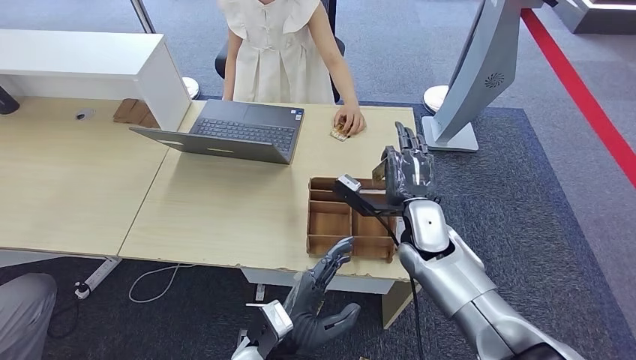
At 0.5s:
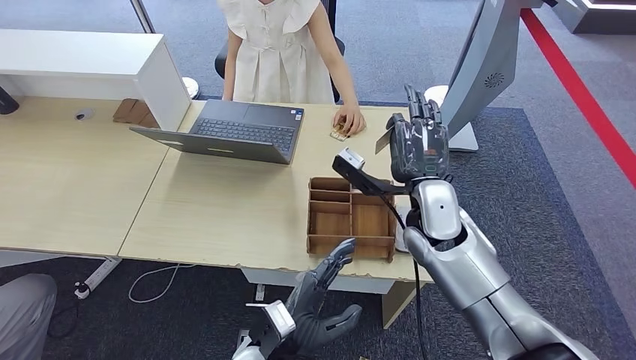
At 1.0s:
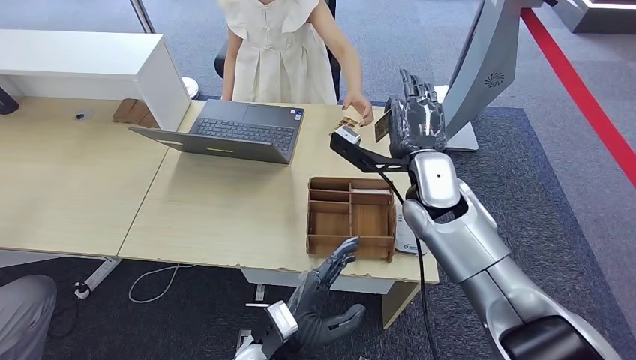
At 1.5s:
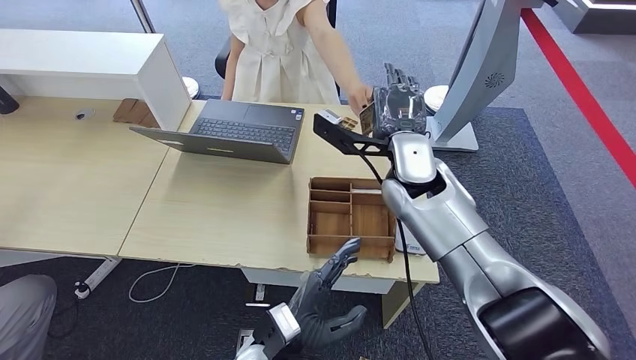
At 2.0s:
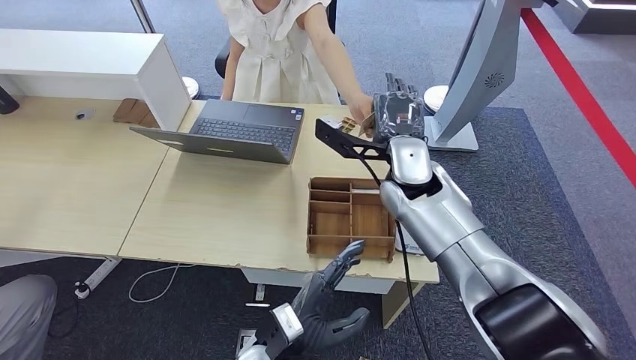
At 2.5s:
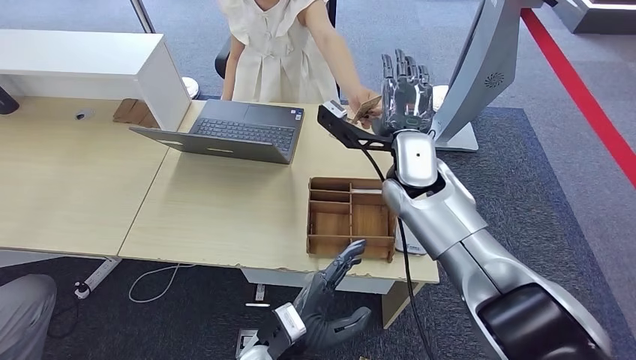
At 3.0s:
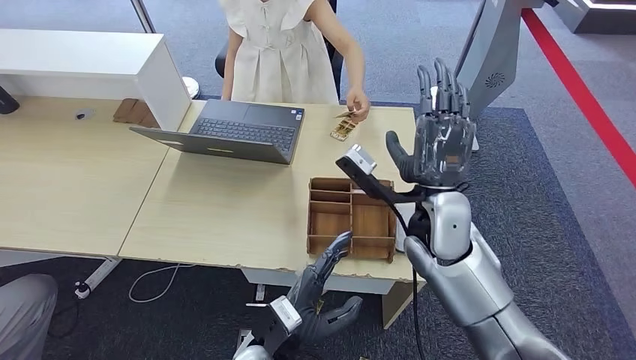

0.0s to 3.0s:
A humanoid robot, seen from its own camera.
Step, 1.5s to 3.0s: Hand the room key to the person.
0.0s to 1.5s: The right hand goes roughly 15 cm upward and forward.
1.5s to 3.0s: The right hand is displaced backward by about 10 cm.
